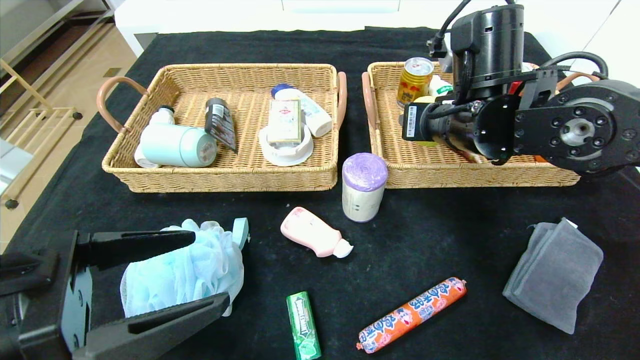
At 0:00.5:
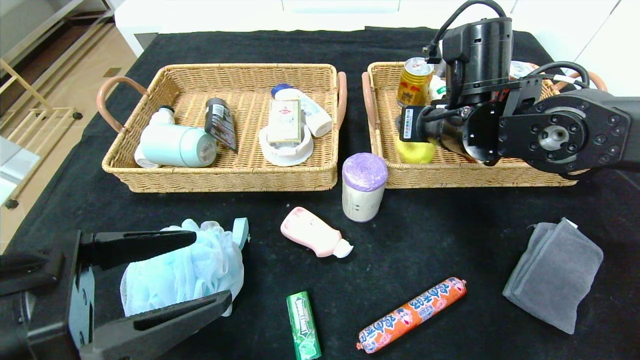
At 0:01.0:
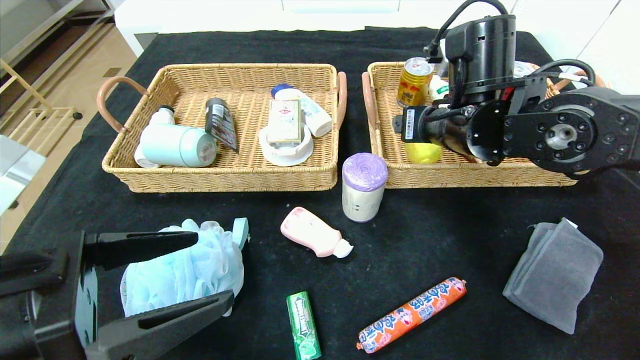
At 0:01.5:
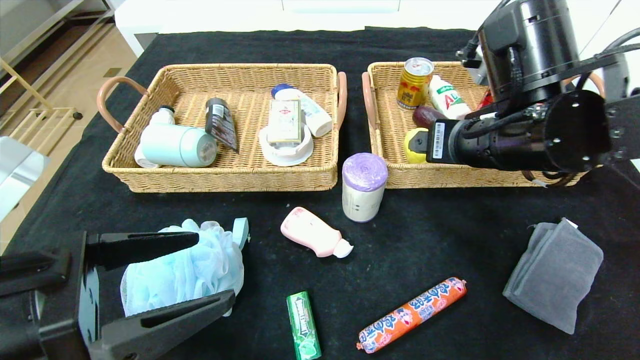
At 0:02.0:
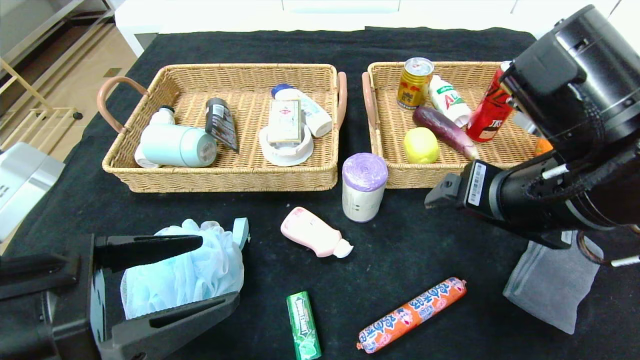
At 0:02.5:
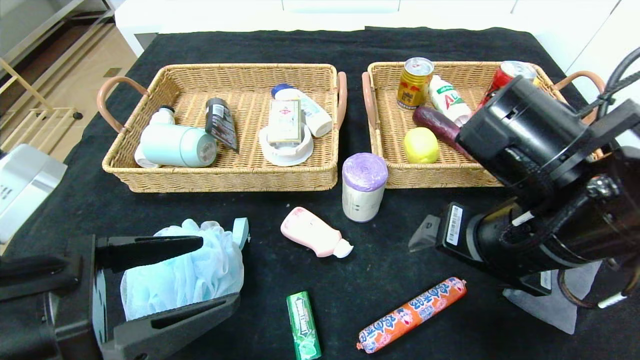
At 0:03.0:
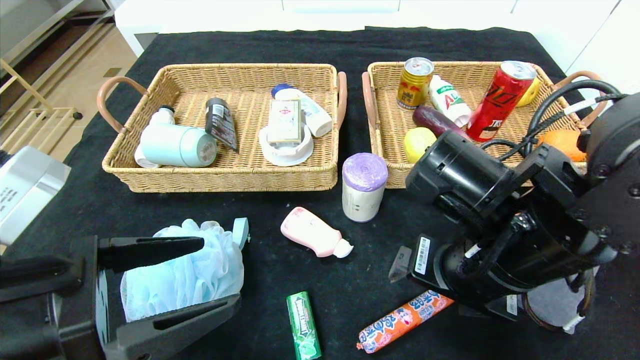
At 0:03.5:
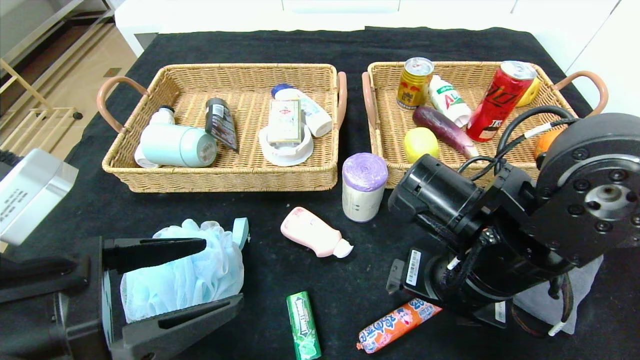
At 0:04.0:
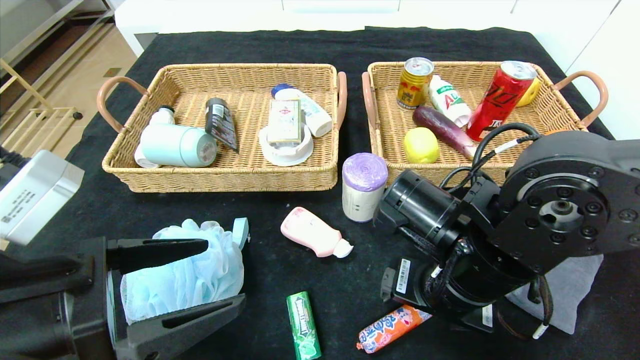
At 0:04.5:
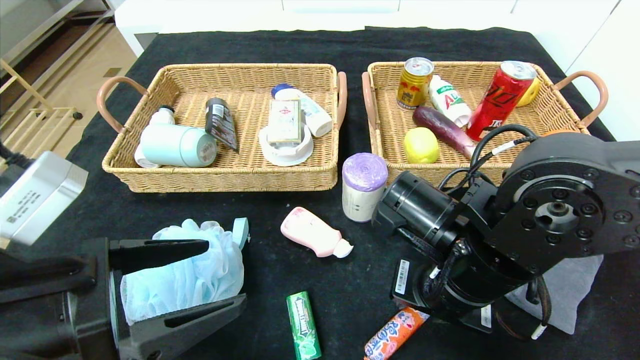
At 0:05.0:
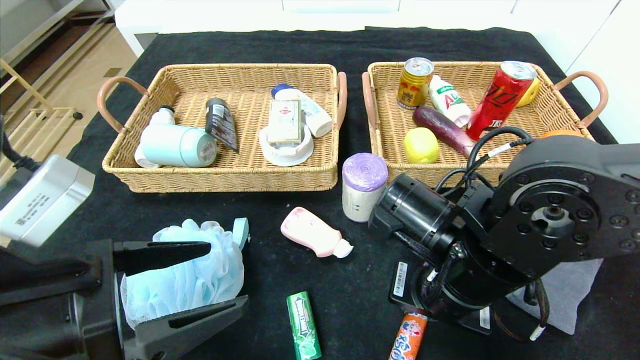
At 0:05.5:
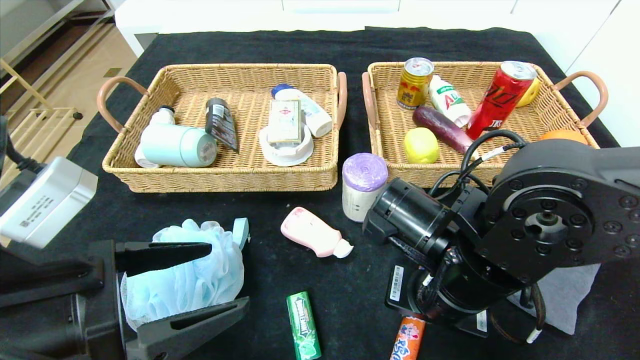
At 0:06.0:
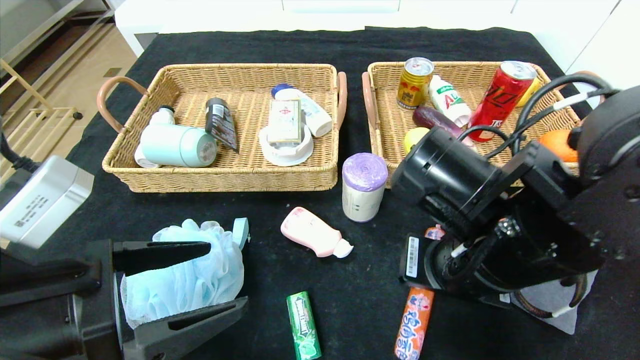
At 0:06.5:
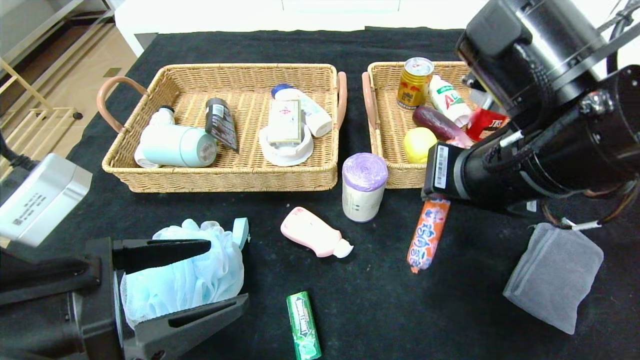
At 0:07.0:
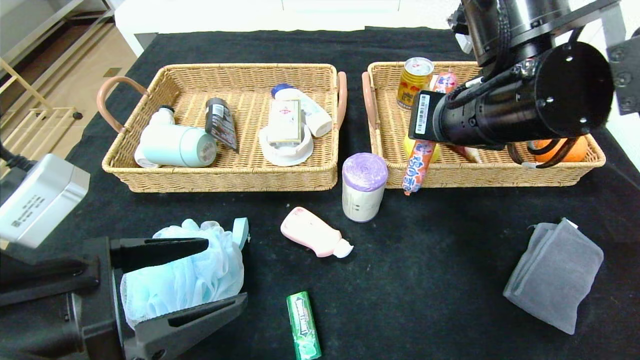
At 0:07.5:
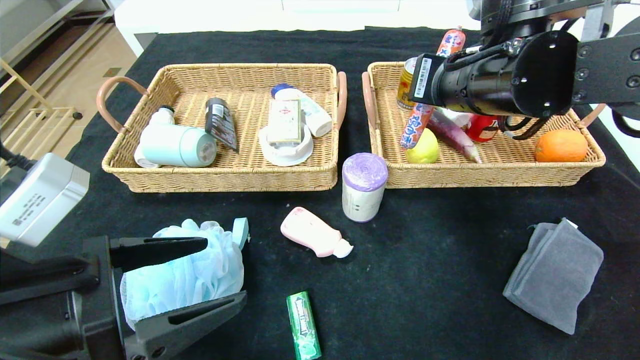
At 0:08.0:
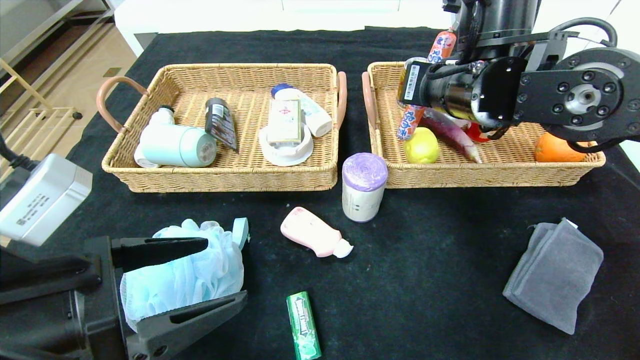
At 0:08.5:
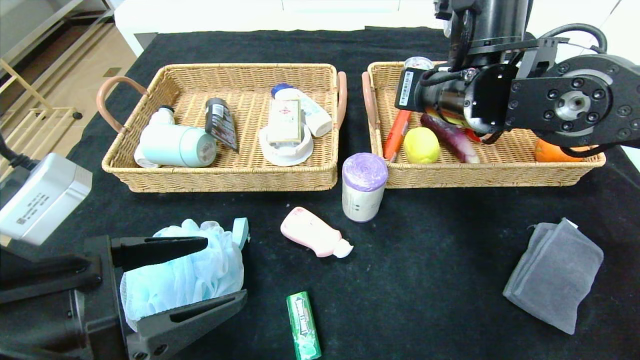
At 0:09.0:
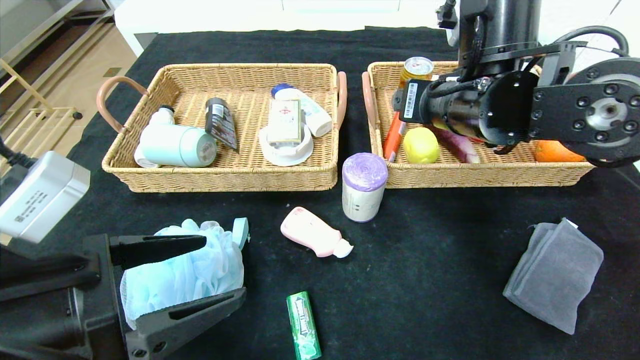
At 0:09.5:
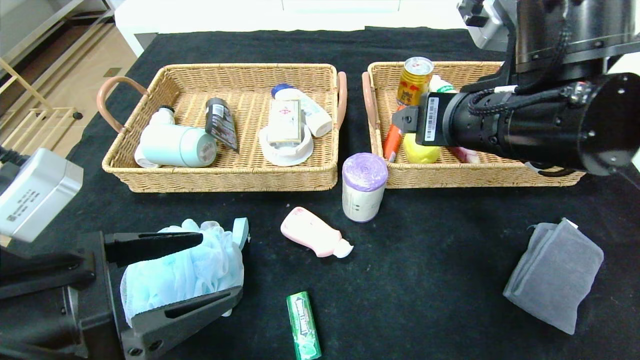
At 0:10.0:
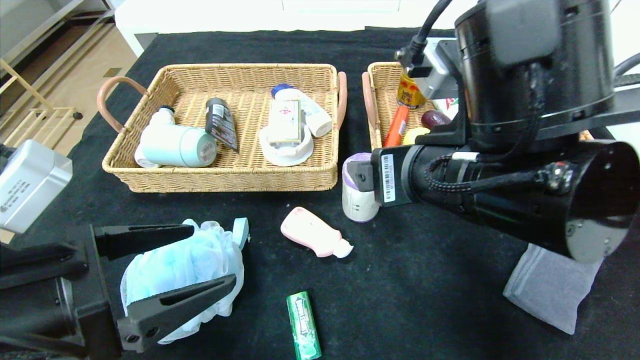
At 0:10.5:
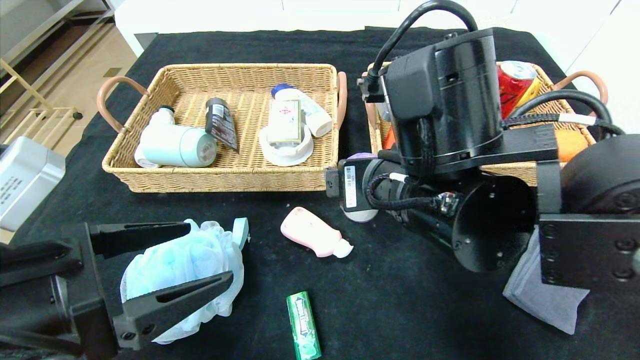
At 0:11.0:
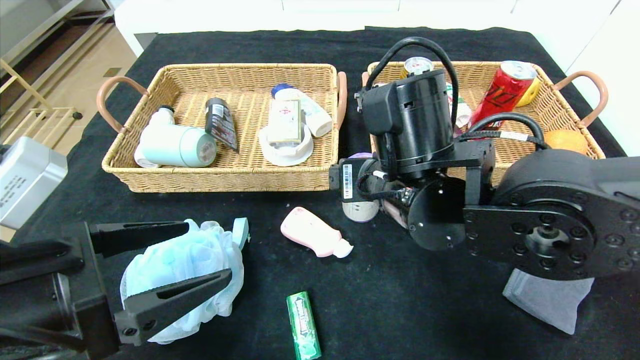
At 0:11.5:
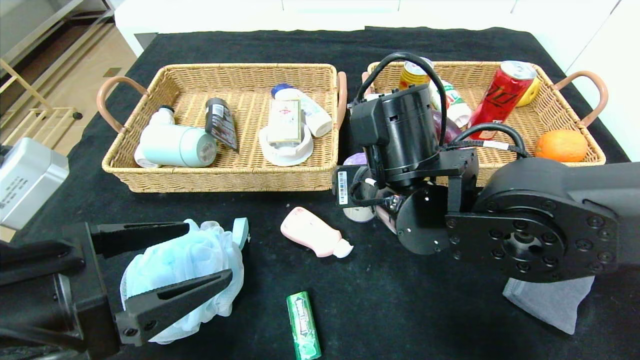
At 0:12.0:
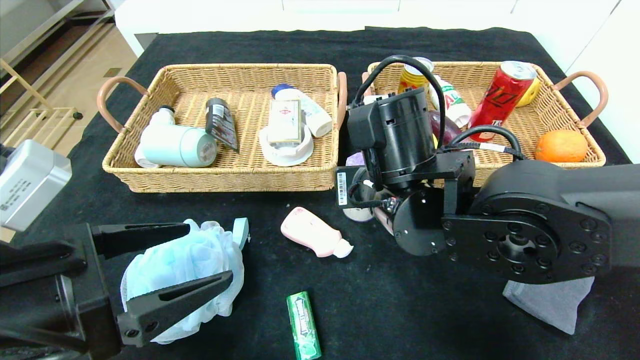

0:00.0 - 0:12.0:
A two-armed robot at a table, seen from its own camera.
Step, 0:01.0 - 0:08.5: Grasp the sausage and put it in the right basket.
0:00.0 - 0:02.0: The right gripper heads backward, covering some 15 cm, and opens.
0:02.0 - 0:04.0: The right gripper shifts roughly 10 cm downward and to the left.
0:04.0 - 0:06.0: The right gripper closes its fingers.
0:06.0 - 0:08.0: The right gripper travels forward and upward by about 15 cm.
0:08.0 - 0:10.0: The right gripper shifts some 15 cm backward, and opens its fingers.
0:10.0 - 0:12.0: The right gripper shifts approximately 10 cm forward and downward, and closes its fingers.

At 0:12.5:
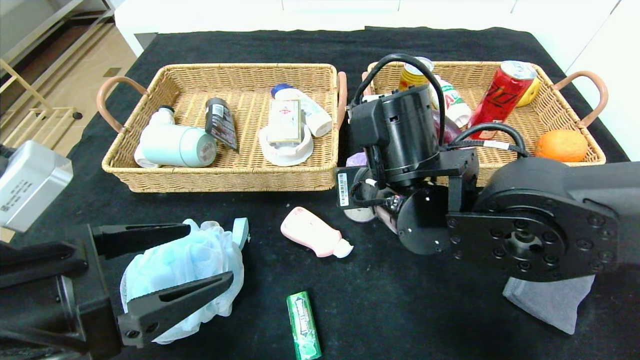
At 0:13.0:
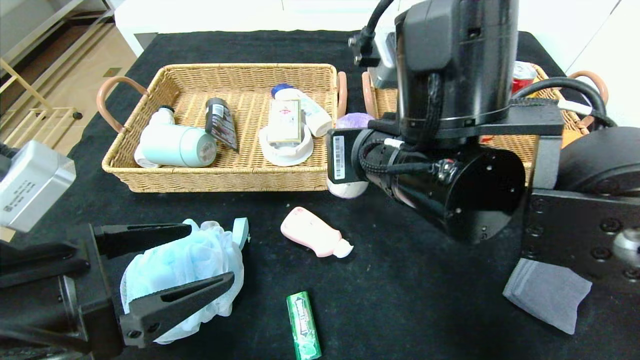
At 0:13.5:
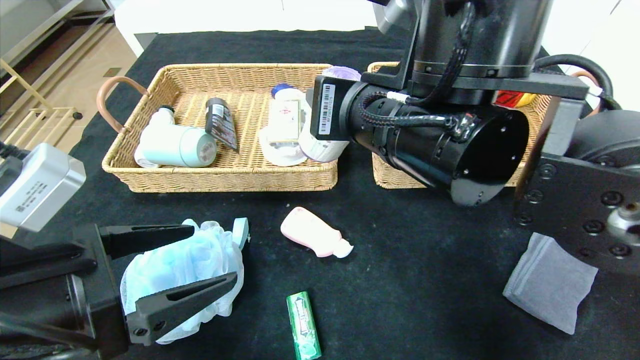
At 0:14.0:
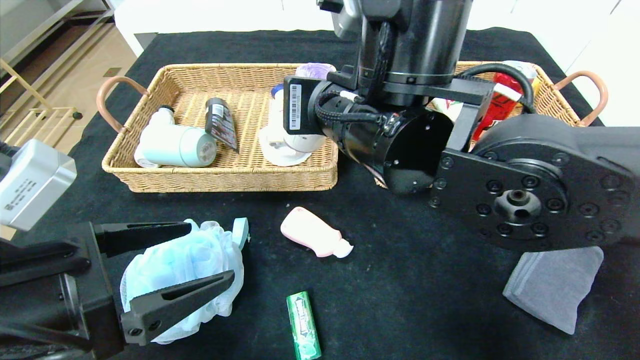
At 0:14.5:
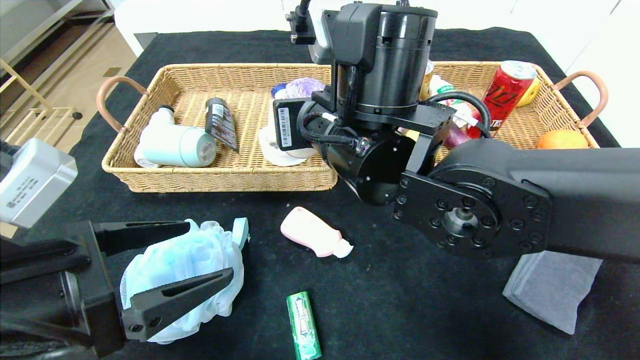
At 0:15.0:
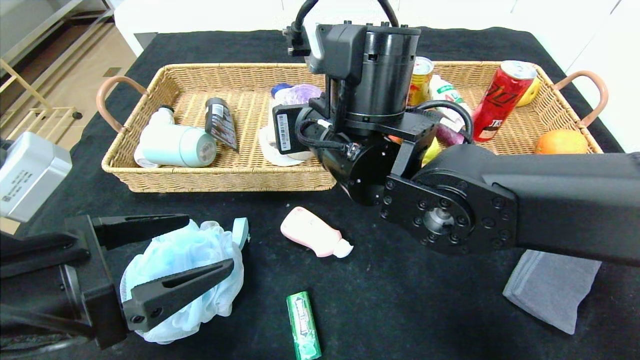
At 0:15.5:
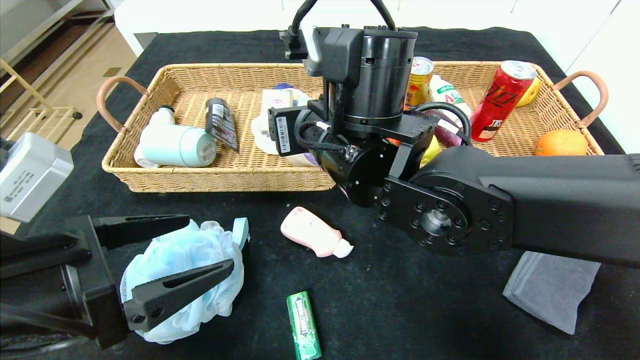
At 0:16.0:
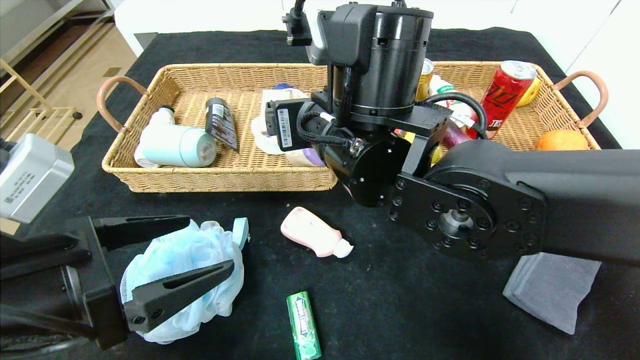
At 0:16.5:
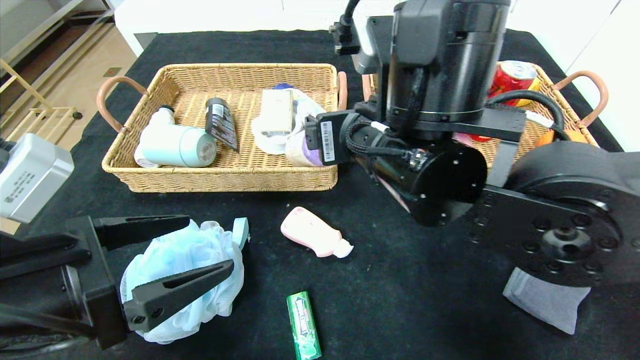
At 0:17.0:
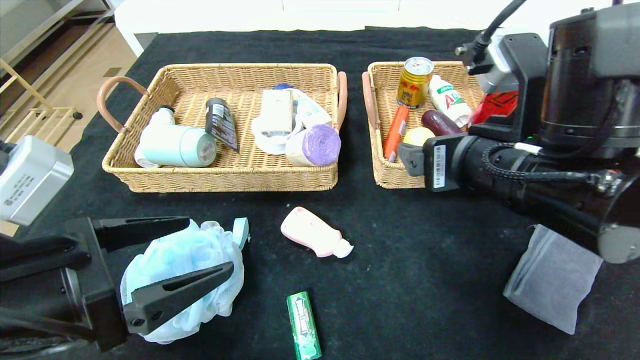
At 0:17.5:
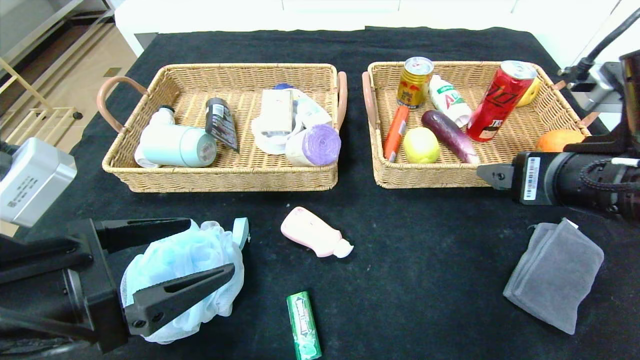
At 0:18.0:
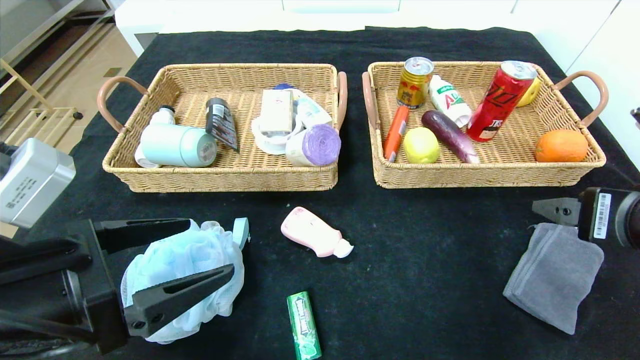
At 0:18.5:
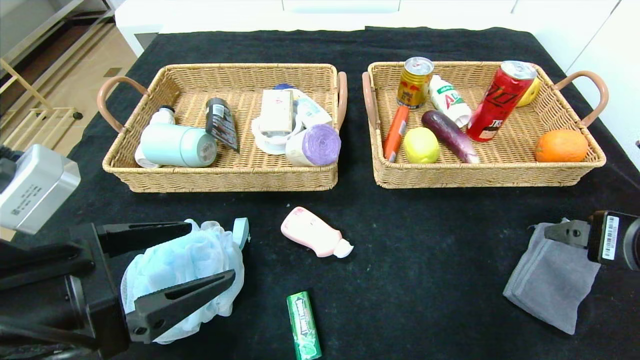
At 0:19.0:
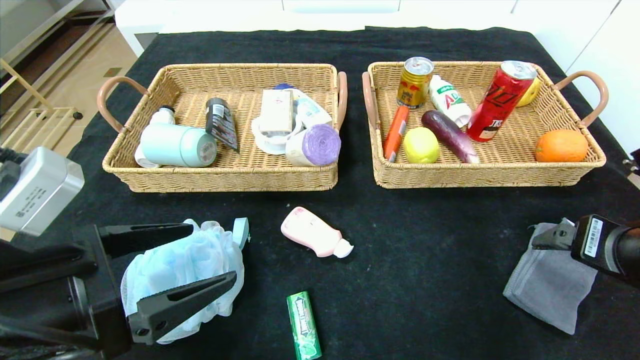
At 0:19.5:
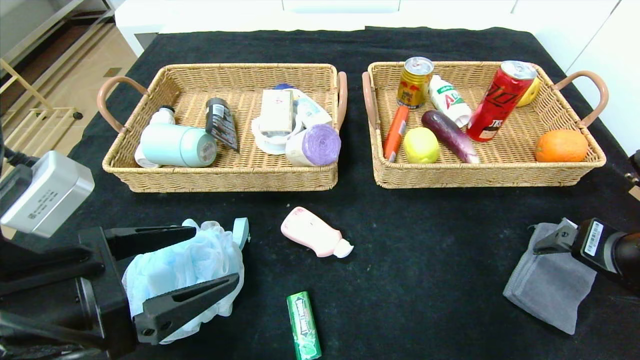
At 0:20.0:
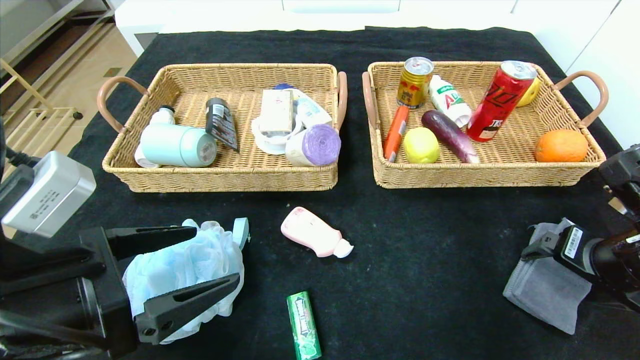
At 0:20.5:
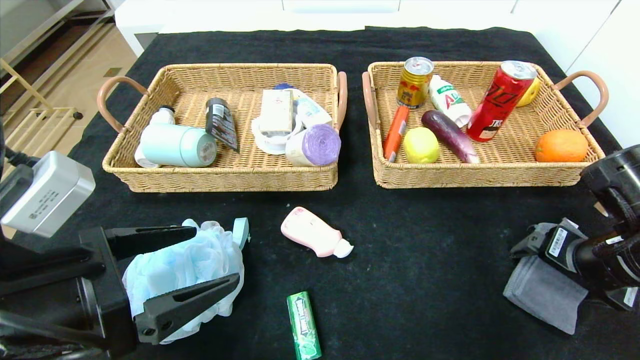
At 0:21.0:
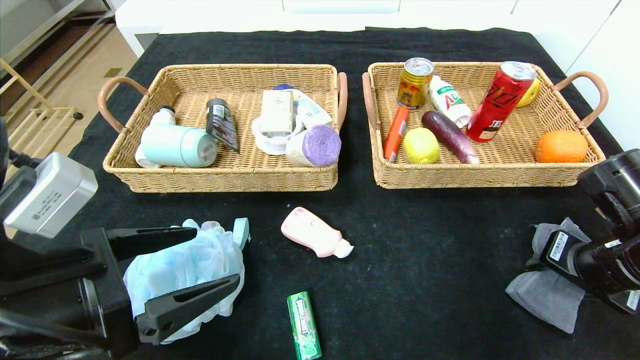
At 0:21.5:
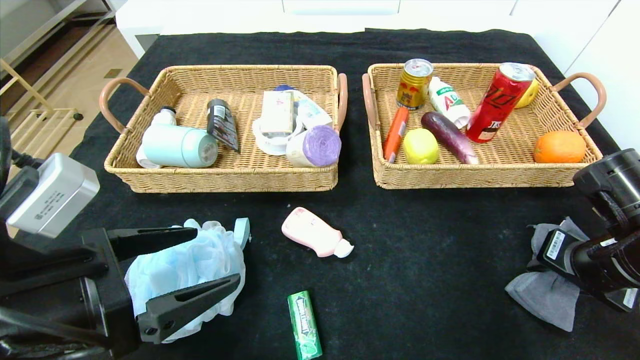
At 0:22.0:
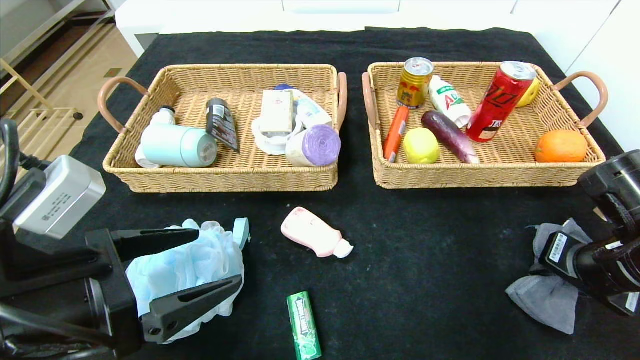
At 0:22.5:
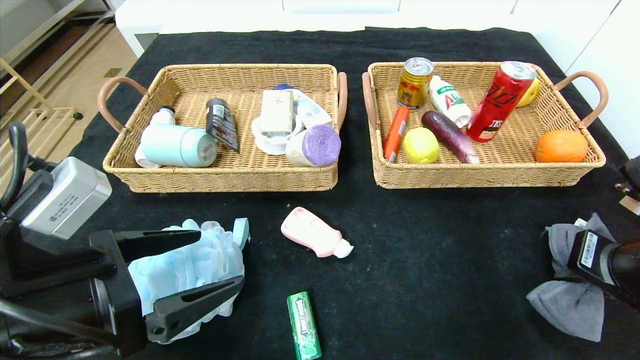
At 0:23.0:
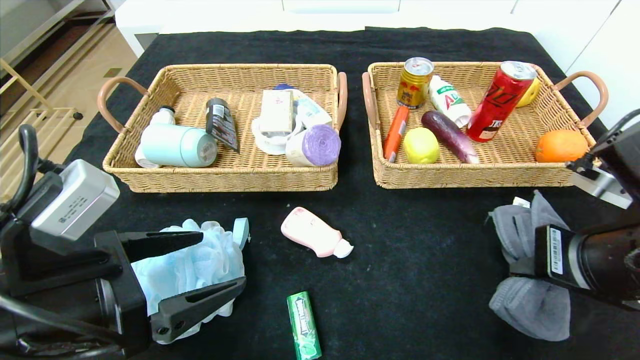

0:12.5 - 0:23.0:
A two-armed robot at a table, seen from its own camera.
0:12.5 - 0:14.5: The right gripper goes about 5 cm upward.
0:14.5 - 0:16.5: The right gripper opens up.
0:16.5 - 0:19.0: The right gripper moves to the right, approximately 25 cm.
0:19.0 - 0:21.0: The right gripper shifts by roughly 5 cm, and closes its fingers.
0:21.0 - 0:23.0: The right gripper is displaced to the left, upward and backward by approximately 10 cm, and closes up.
